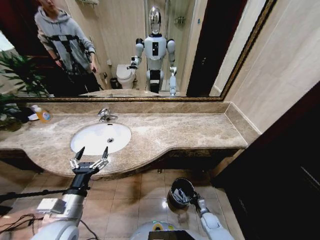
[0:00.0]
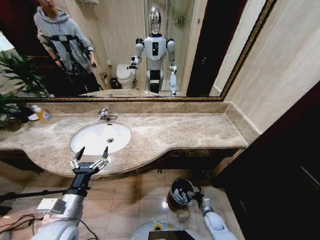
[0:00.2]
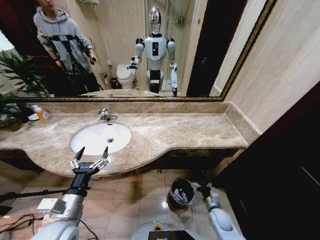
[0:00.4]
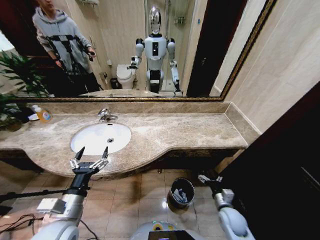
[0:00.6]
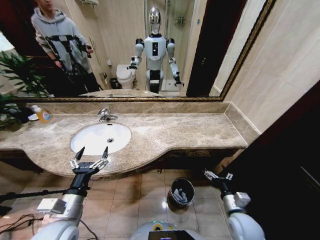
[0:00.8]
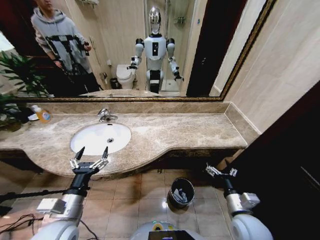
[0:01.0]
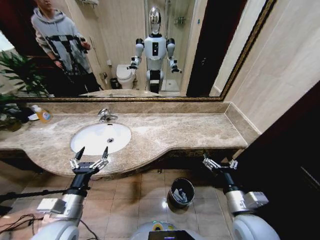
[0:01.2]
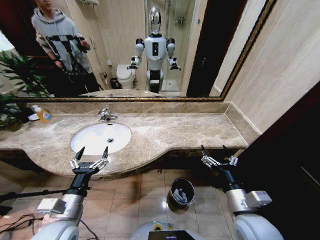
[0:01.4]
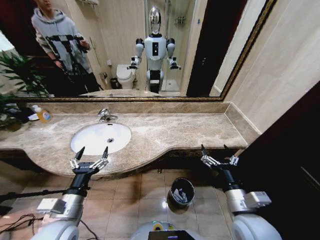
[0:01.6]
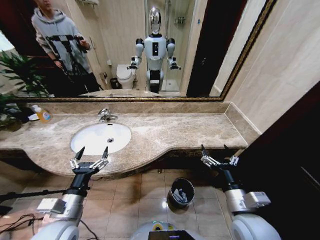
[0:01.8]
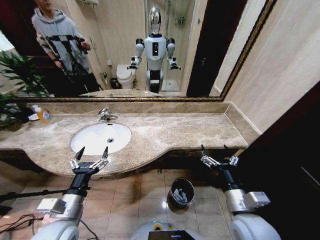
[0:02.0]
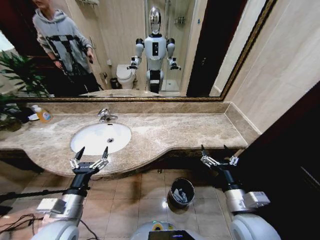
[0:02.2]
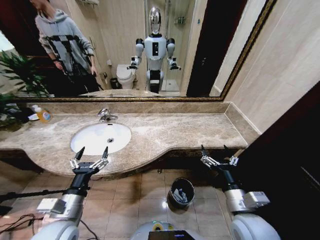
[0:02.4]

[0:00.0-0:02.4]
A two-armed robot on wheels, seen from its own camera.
Task of the whole recording: Pick up the trash from the sink and place it in the trash bin.
0:00.0 to 0:01.2: The right gripper moves upward, roughly 40 cm, and opens.
0:01.2 to 0:02.4: The grippers move only a little.

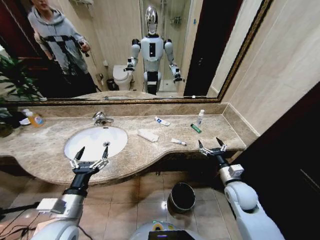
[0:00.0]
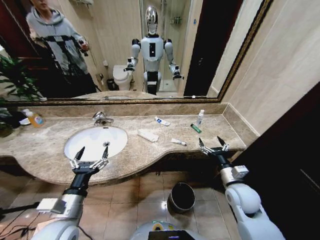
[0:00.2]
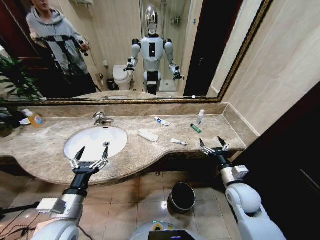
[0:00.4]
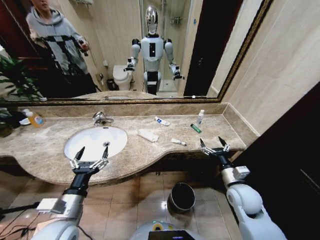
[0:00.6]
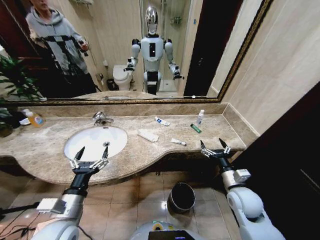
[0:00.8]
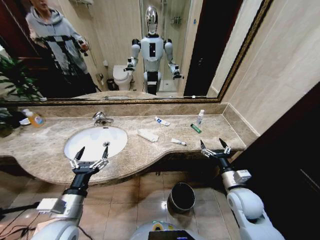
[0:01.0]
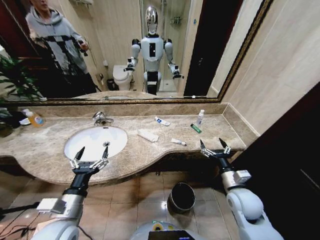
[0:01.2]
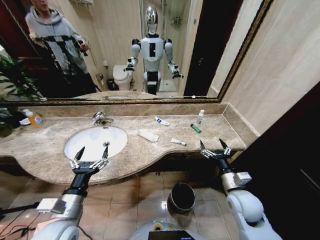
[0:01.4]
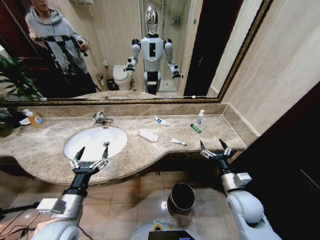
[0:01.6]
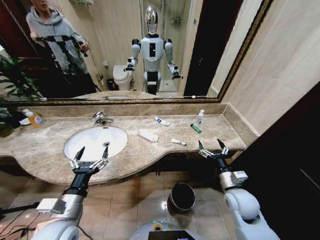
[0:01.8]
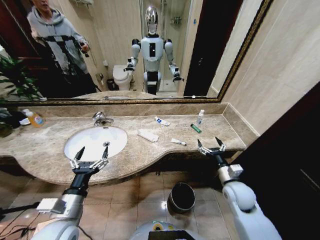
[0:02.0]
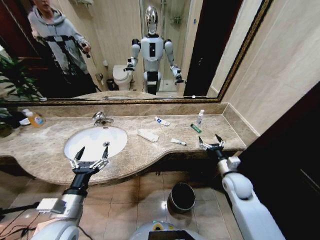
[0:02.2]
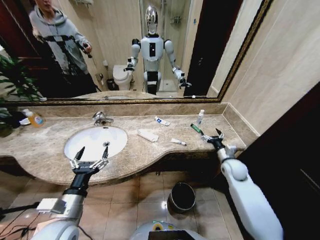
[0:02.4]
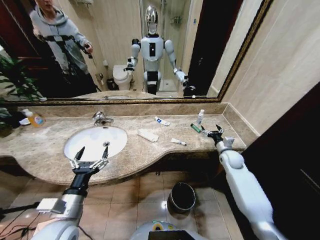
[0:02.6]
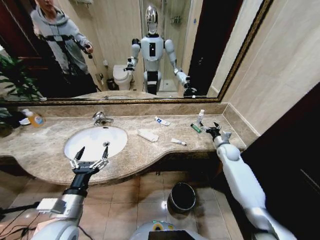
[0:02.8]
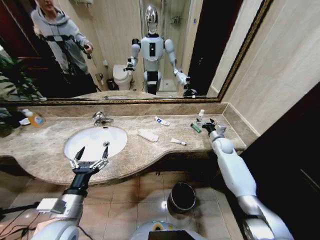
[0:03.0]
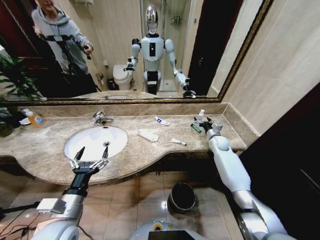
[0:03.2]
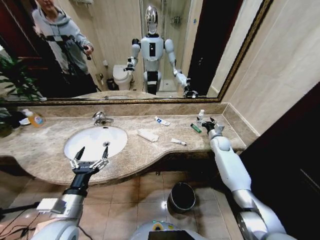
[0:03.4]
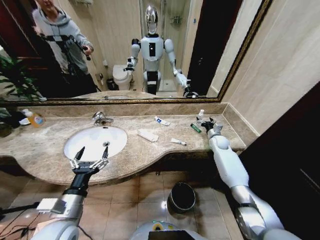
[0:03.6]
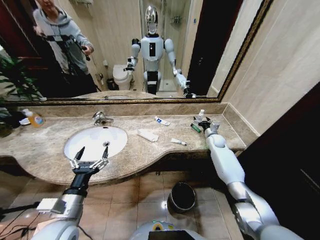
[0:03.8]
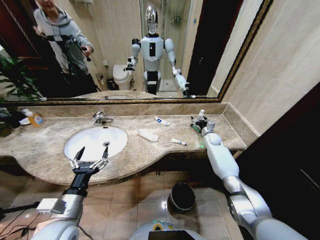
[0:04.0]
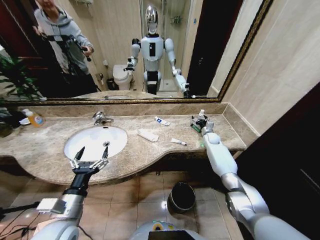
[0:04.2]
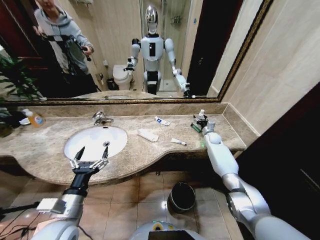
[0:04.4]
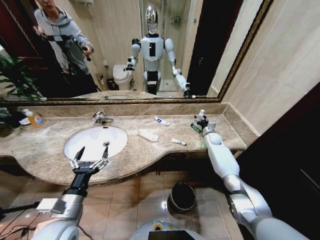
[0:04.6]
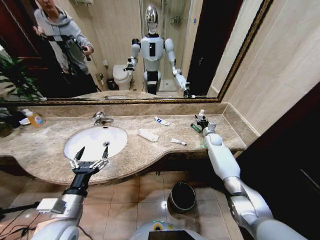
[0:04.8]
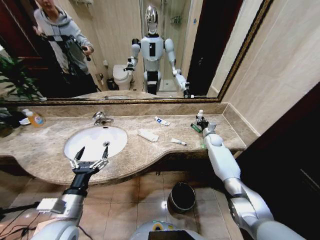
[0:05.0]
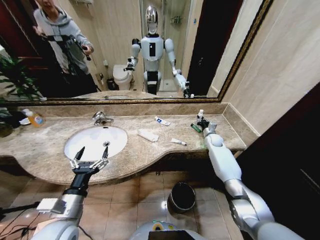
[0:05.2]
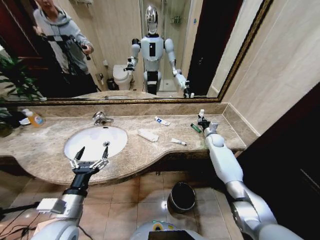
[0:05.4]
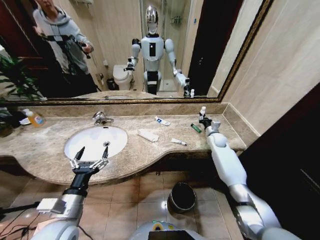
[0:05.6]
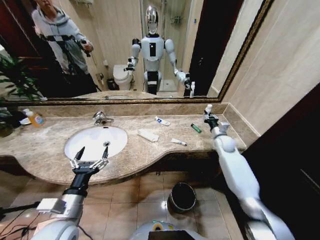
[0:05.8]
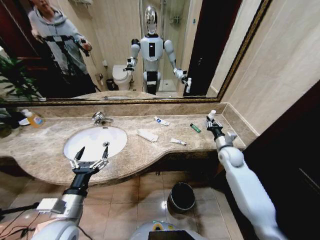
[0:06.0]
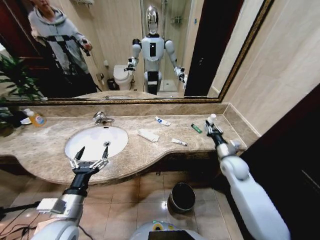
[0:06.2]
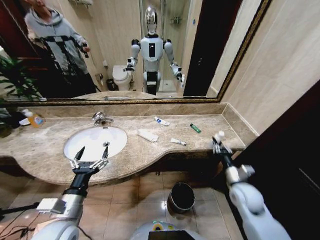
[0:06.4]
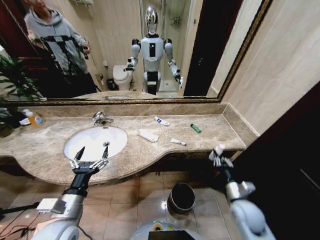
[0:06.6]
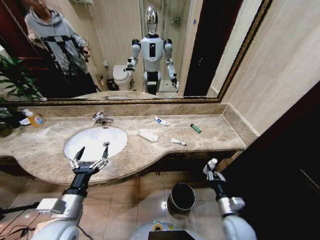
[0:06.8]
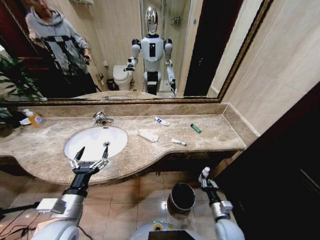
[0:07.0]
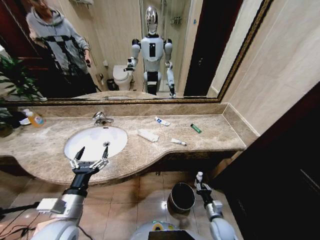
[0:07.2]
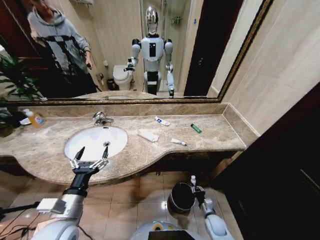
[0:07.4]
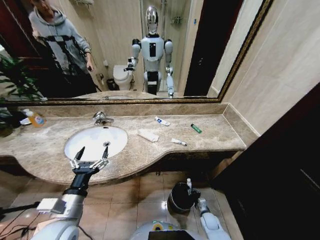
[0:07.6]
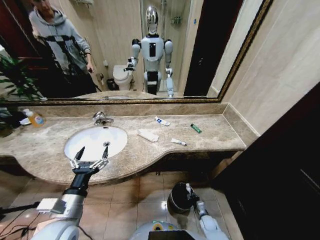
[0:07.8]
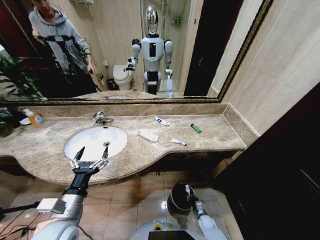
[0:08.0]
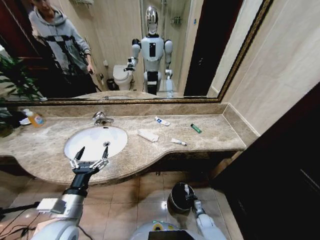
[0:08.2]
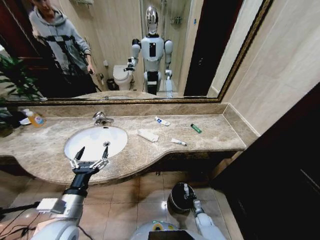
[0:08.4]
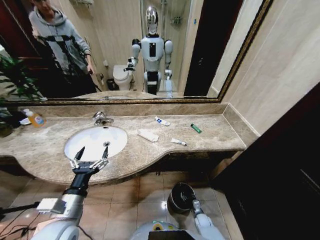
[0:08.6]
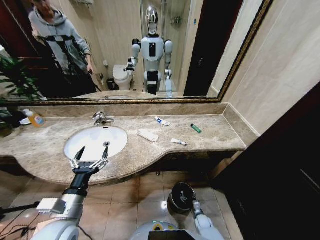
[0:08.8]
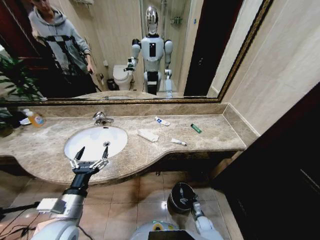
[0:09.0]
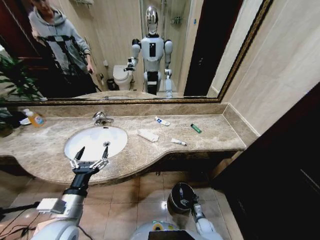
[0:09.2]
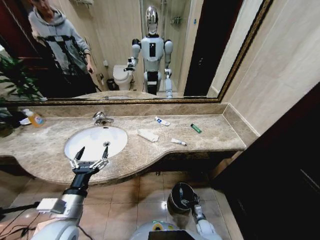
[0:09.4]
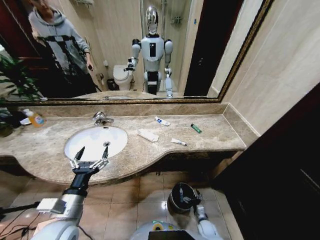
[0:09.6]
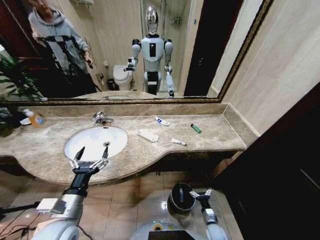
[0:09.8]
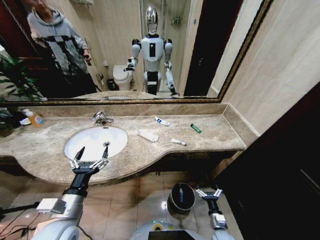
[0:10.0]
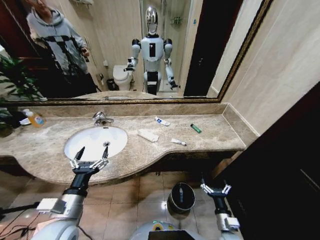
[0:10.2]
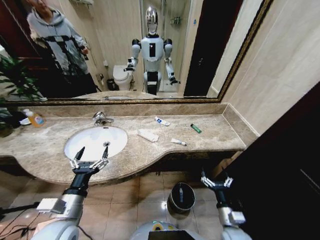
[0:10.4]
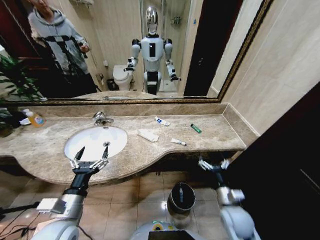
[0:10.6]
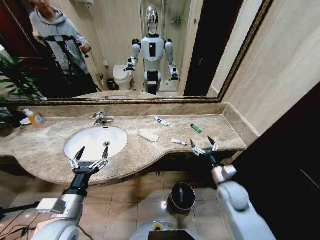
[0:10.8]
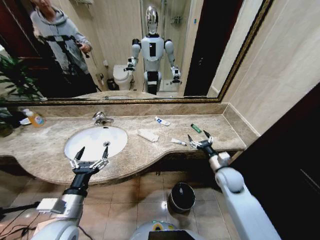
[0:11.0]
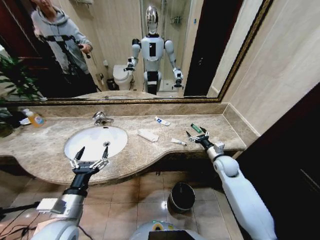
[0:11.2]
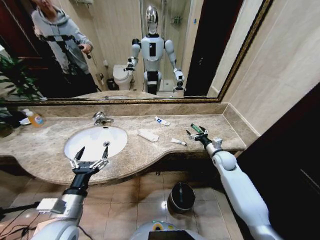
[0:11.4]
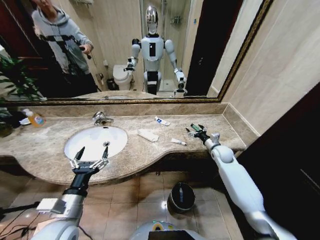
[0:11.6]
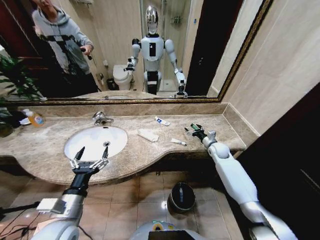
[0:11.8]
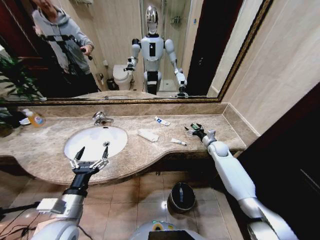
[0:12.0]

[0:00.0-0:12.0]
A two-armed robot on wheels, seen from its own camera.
Task of the whole recording: Pick up the trash from the sink and place it in the trash bin.
0:01.6 to 0:03.0: The right gripper travels forward by some 30 cm.
0:03.0 to 0:04.4: The right gripper goes roughly 10 cm forward.
0:04.4 to 0:06.0: The right gripper shifts some 15 cm backward, and closes its fingers.
0:06.0 to 0:07.6: The right gripper shifts approximately 40 cm downward and backward.
0:07.6 to 0:09.0: The right gripper moves downward, roughly 5 cm, and opens its fingers.
0:09.0 to 0:10.4: The right gripper heads upward, covering about 25 cm.
0:10.4 to 0:12.0: The right gripper goes approximately 35 cm forward.

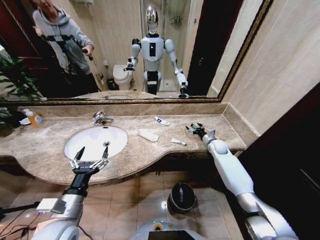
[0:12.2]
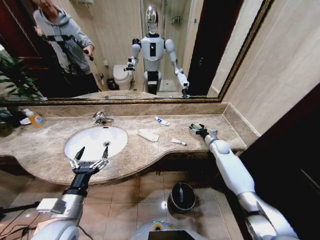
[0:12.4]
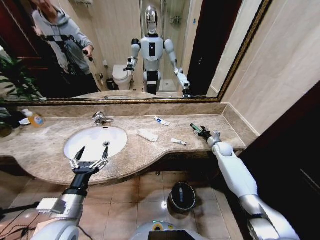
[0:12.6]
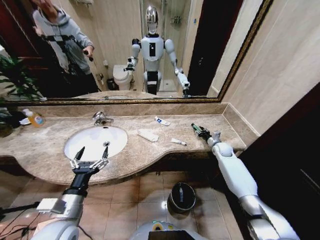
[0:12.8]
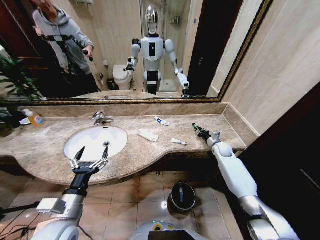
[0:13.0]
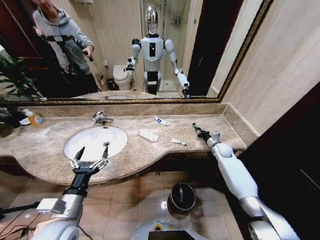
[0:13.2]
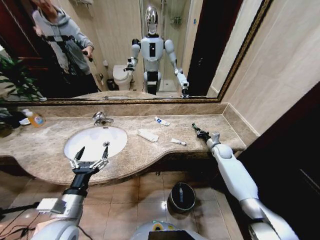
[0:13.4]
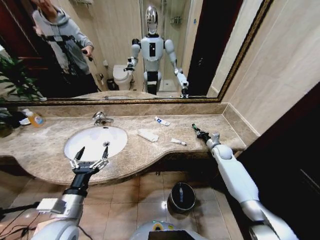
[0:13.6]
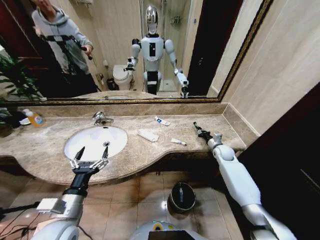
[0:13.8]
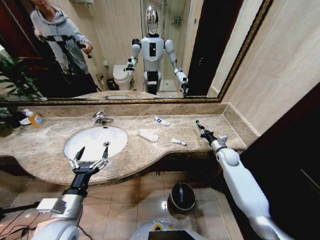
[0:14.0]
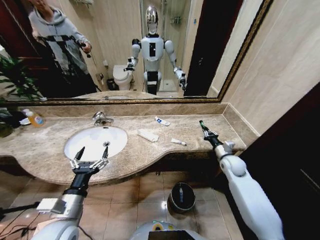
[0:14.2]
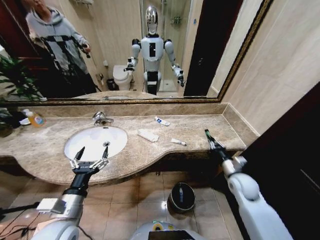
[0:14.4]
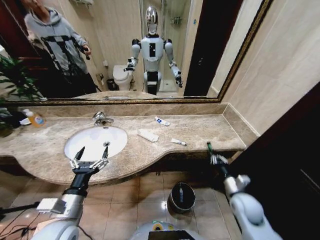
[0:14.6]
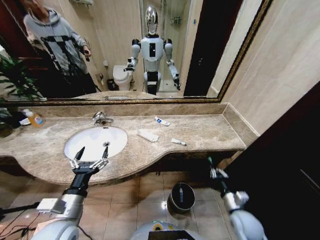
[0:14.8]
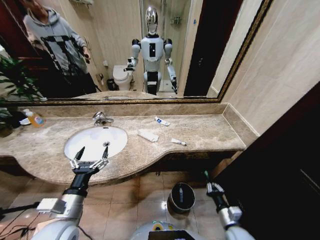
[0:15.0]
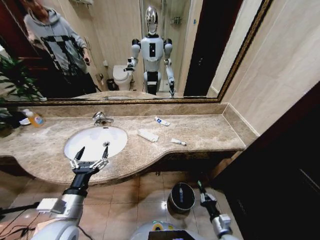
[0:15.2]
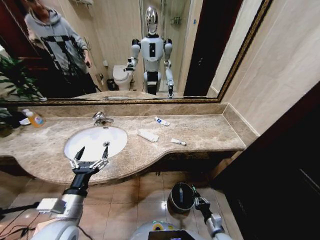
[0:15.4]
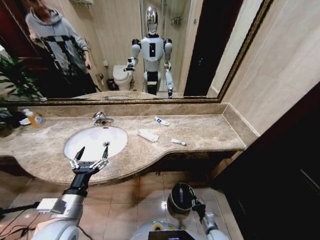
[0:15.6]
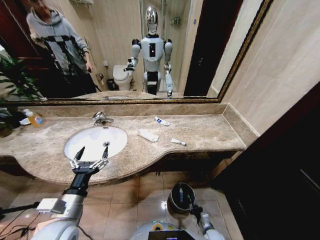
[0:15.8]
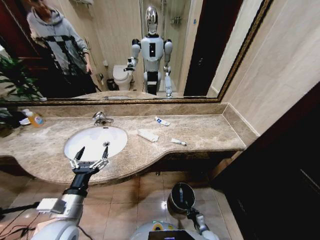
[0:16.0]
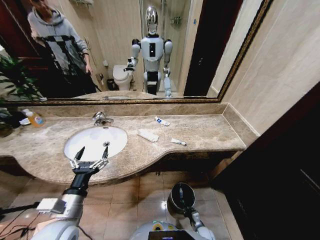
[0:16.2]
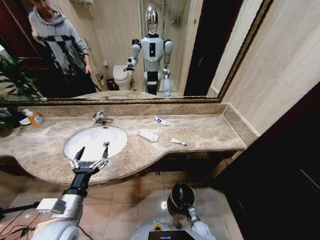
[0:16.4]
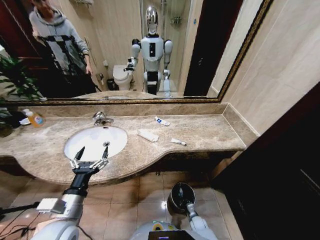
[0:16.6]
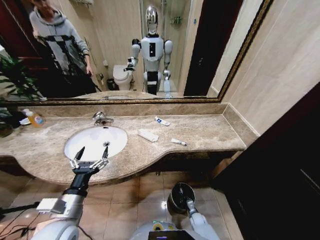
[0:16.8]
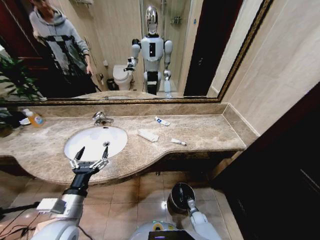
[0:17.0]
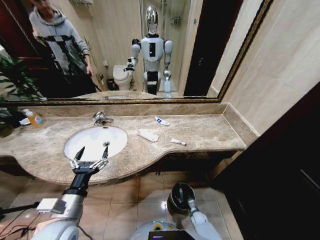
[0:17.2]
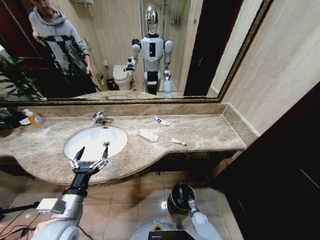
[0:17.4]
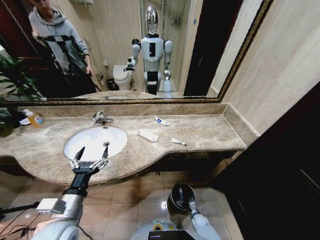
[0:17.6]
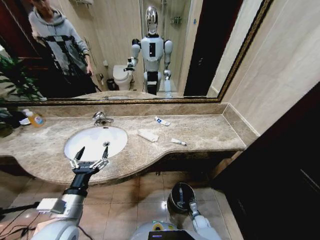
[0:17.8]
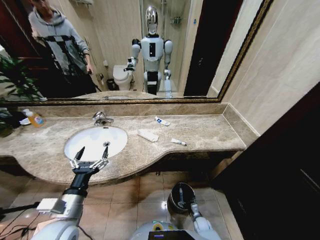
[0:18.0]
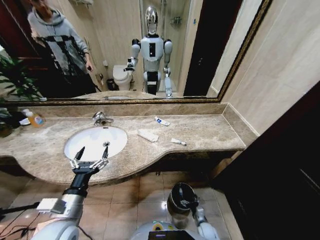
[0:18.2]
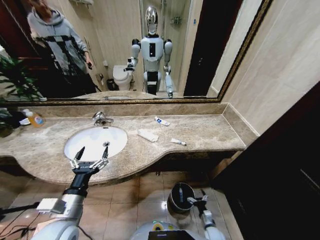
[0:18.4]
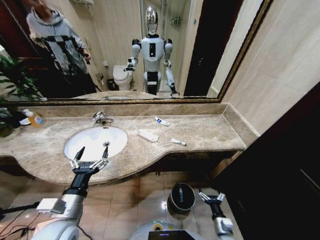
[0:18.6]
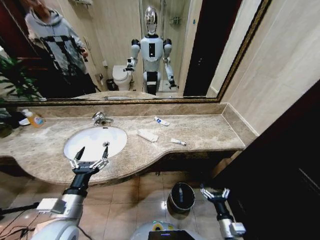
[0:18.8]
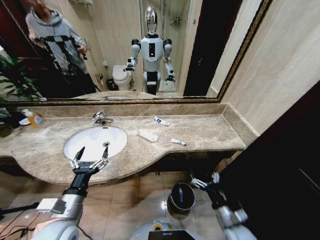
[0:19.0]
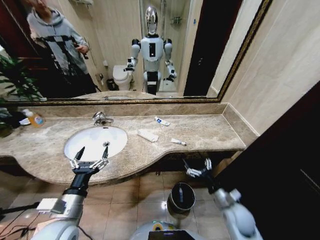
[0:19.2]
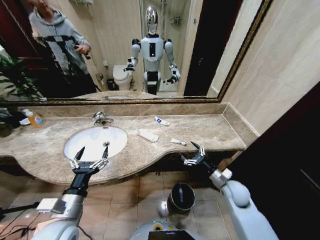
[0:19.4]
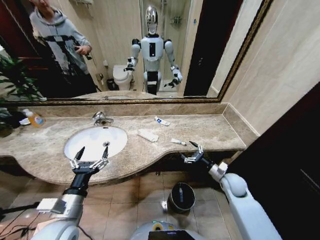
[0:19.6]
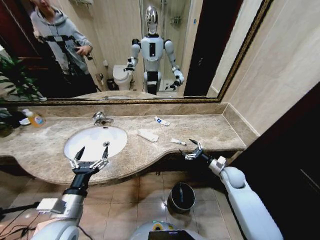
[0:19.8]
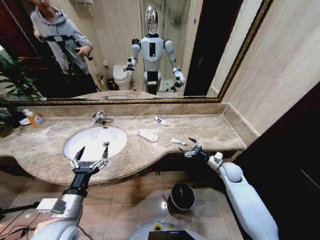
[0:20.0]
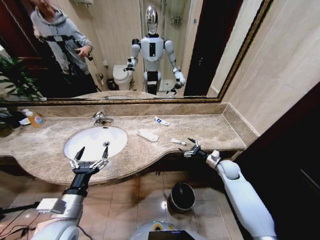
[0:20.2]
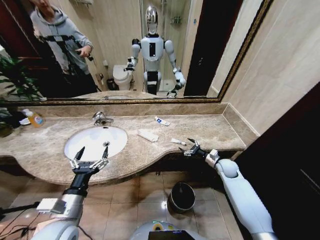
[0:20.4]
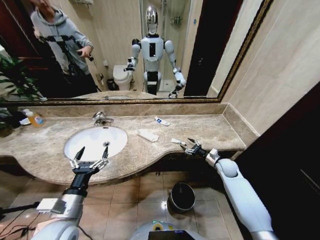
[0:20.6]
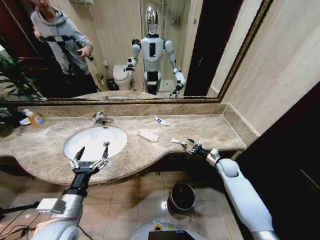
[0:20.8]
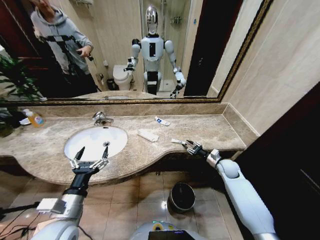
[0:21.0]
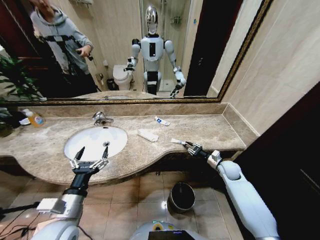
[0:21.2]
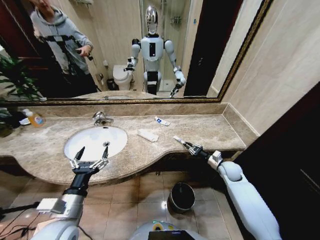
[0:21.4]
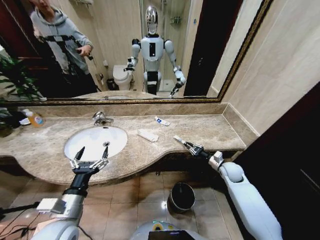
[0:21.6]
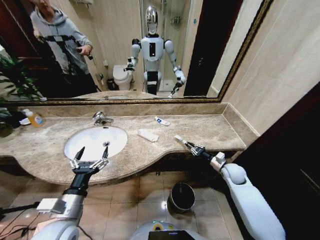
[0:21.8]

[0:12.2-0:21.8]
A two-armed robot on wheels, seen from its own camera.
Task of the whole recording: Pick up the trash from the sink and place it in the trash bin.
0:12.2 to 0:13.8: The right gripper closes its fingers.
0:13.8 to 0:15.4: The right gripper is displaced backward and downward by some 40 cm.
0:15.4 to 0:17.0: The right gripper is displaced downward and forward by about 20 cm.
0:17.0 to 0:18.6: The right gripper moves upward and backward, approximately 20 cm, and opens.
0:18.6 to 0:20.2: The right gripper travels forward and upward by approximately 30 cm.
0:20.2 to 0:21.8: The right gripper closes.
